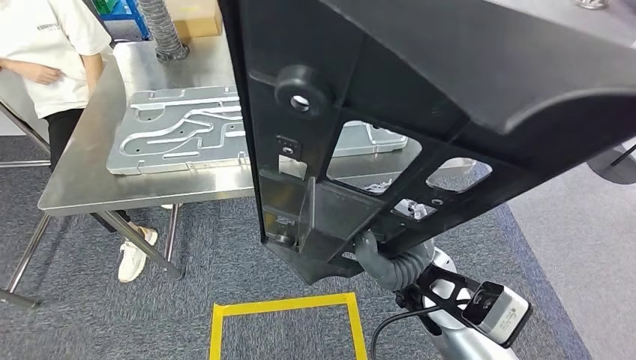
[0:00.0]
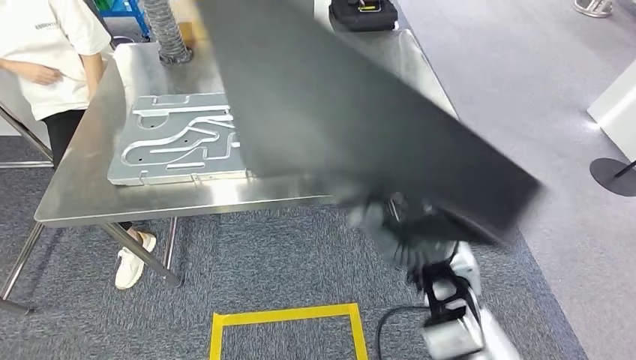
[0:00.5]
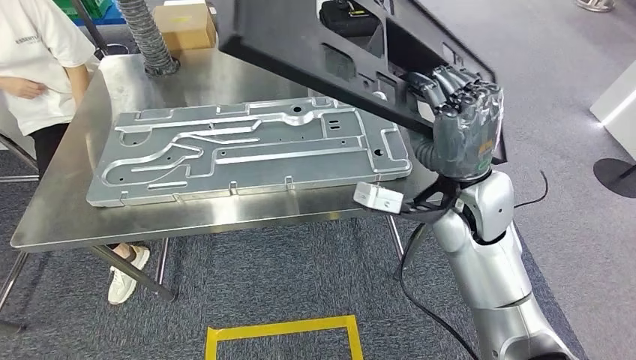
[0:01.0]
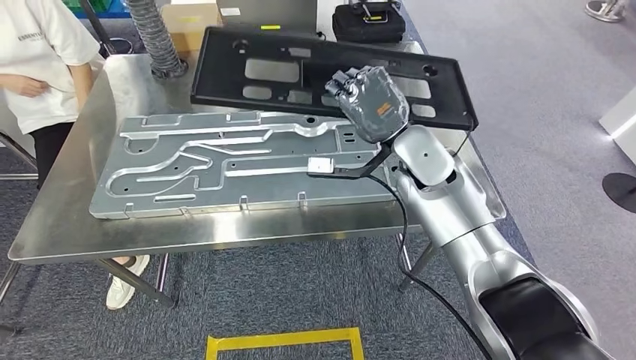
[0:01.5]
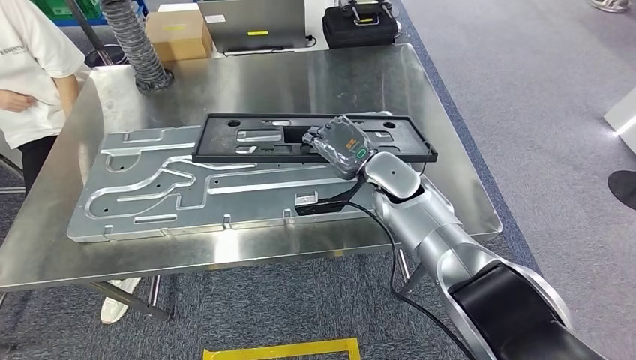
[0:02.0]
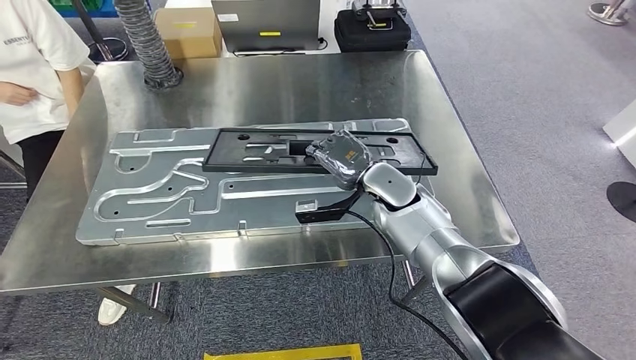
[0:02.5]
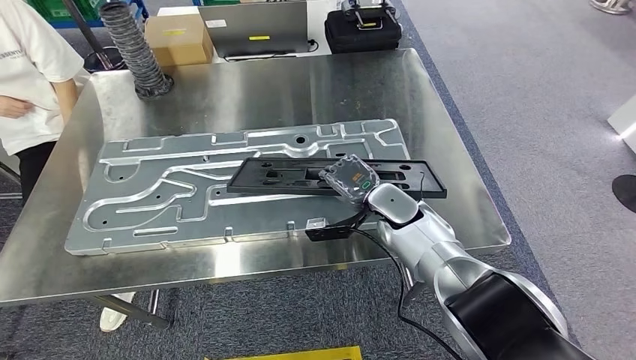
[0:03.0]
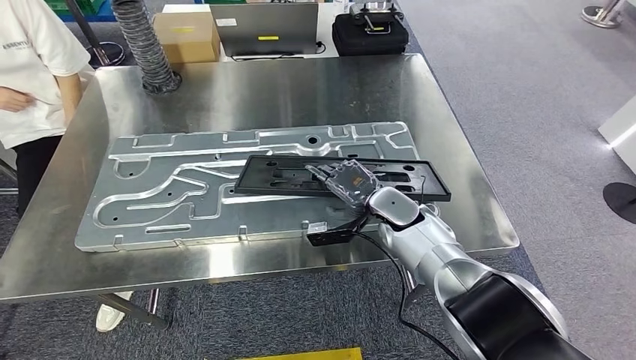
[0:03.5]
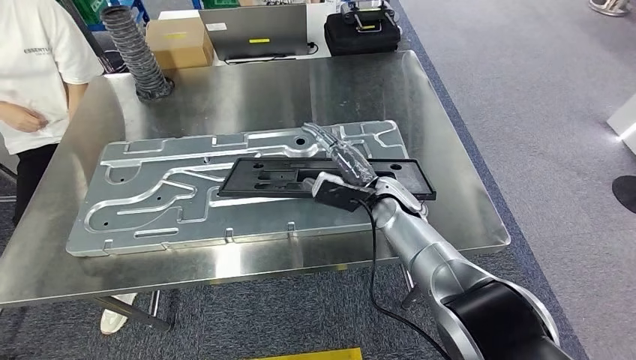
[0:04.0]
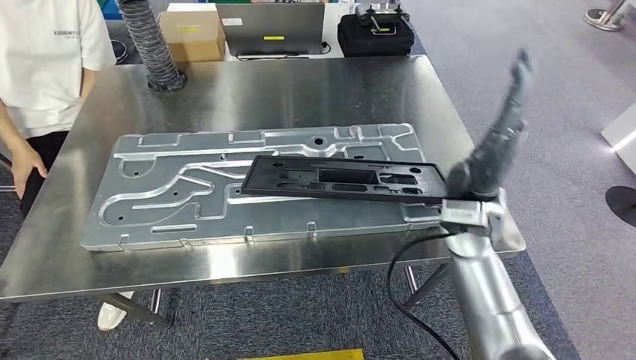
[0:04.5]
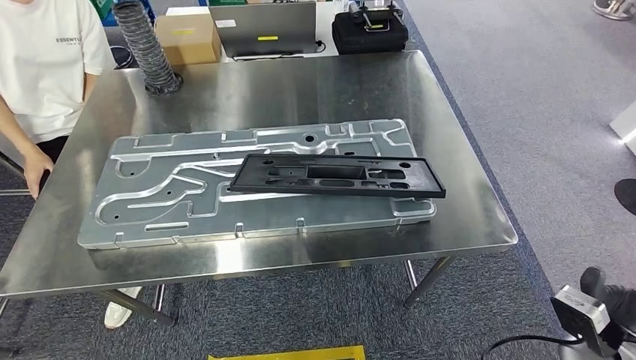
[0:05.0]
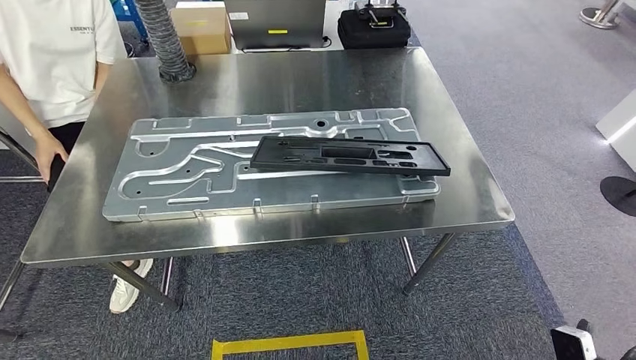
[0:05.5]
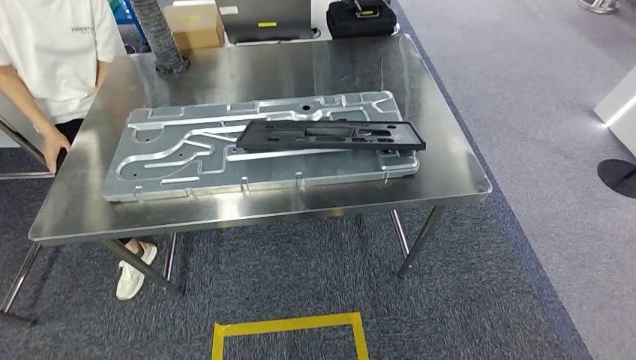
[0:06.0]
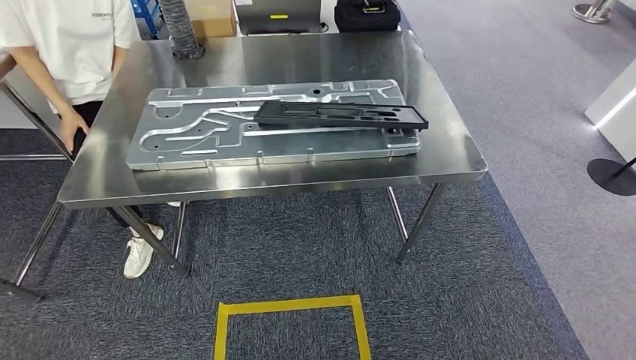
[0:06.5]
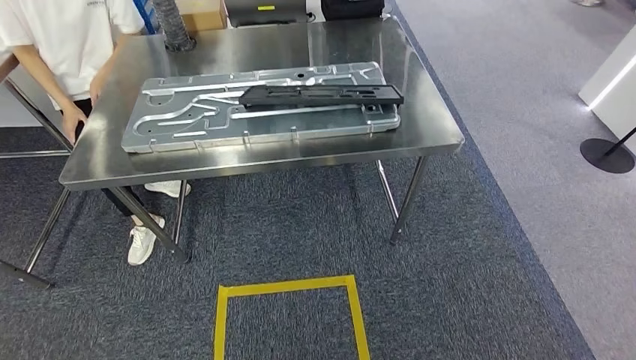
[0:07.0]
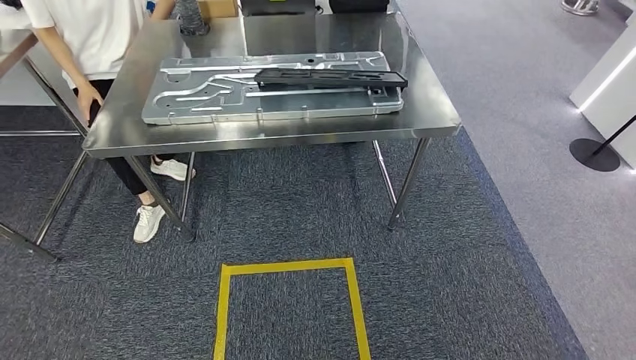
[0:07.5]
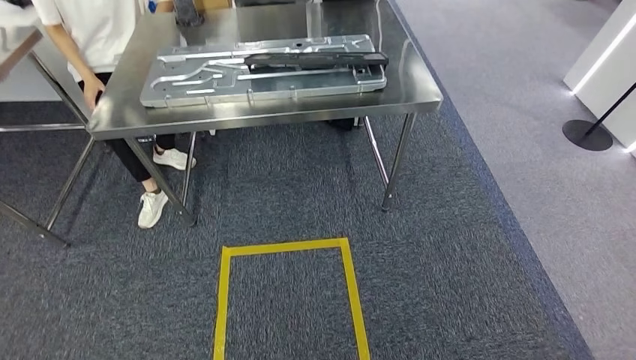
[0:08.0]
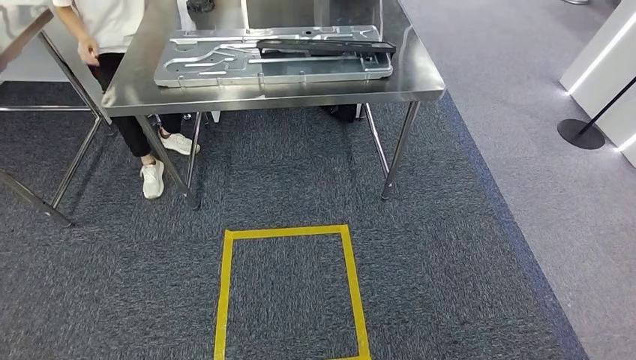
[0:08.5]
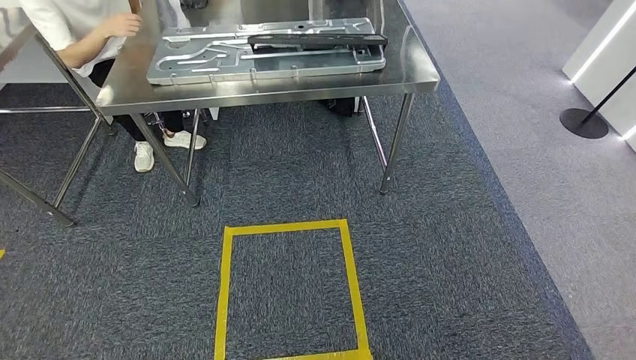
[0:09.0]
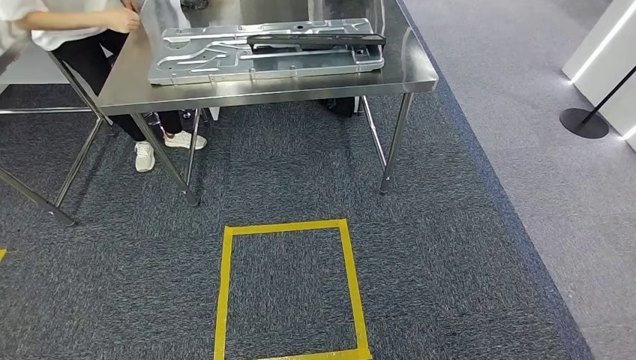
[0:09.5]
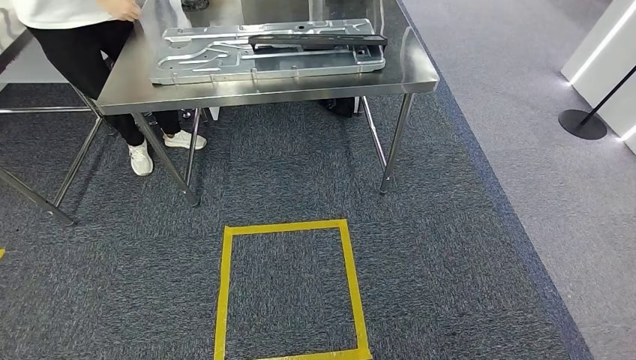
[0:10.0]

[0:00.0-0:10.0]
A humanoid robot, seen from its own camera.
Step, 0:00.0 to 0:02.0: Move the large material to the workbench.
Step, 0:03.0 to 0:05.0: Insert the large material into the corresponding slot on the workbench.
Step, 0:05.5 to 0:10.0: Move to the initial position of the shelf.
